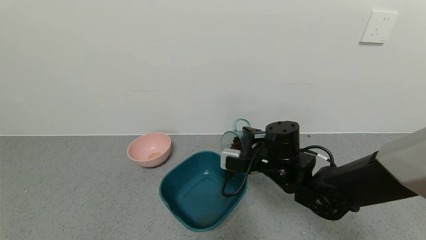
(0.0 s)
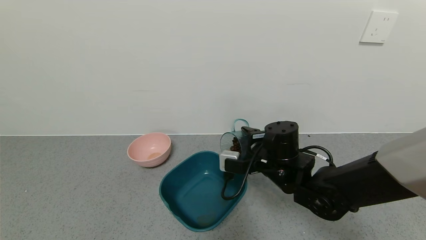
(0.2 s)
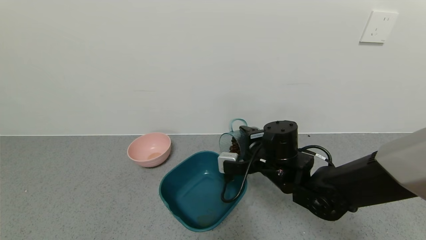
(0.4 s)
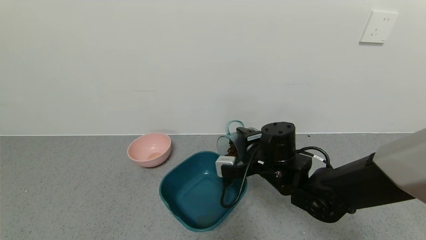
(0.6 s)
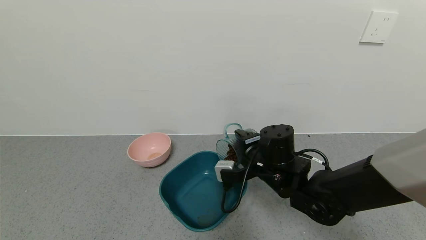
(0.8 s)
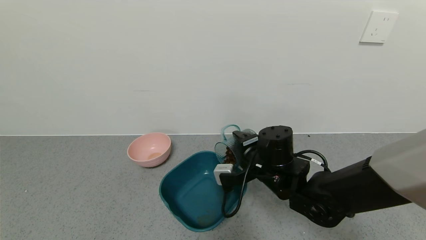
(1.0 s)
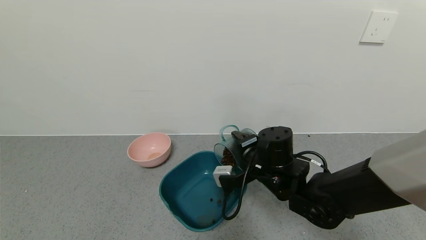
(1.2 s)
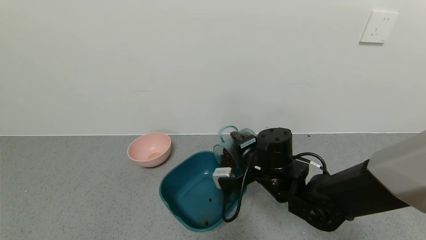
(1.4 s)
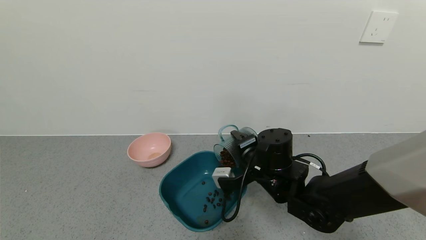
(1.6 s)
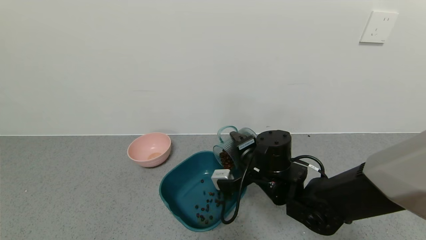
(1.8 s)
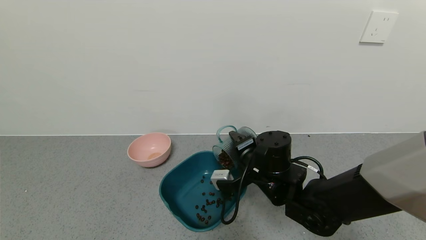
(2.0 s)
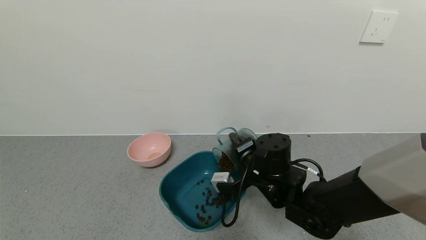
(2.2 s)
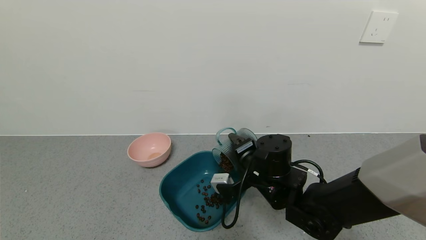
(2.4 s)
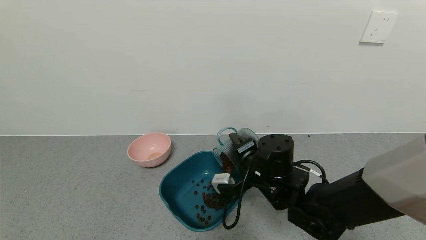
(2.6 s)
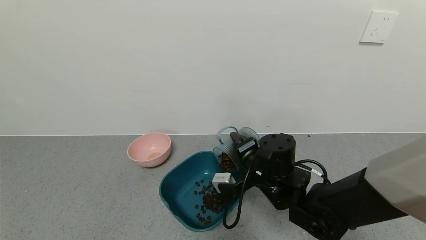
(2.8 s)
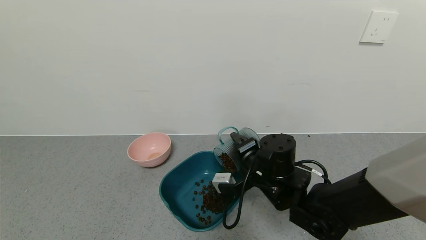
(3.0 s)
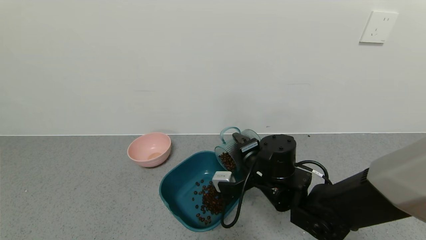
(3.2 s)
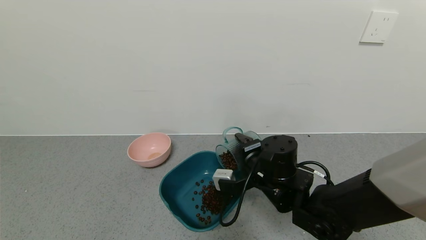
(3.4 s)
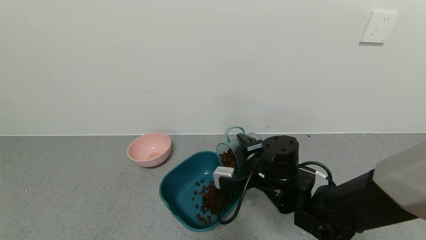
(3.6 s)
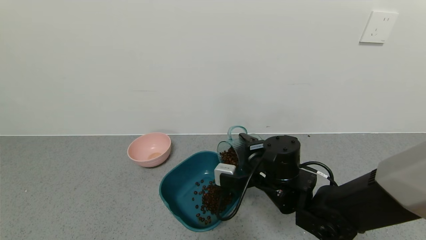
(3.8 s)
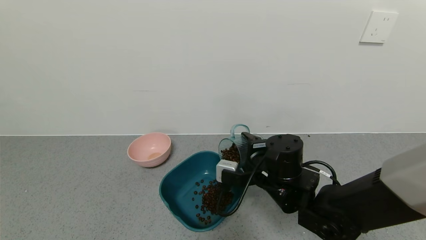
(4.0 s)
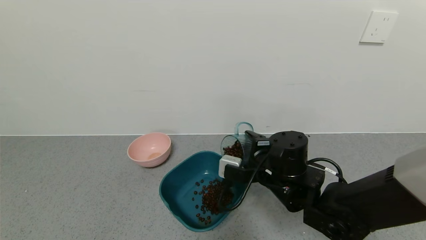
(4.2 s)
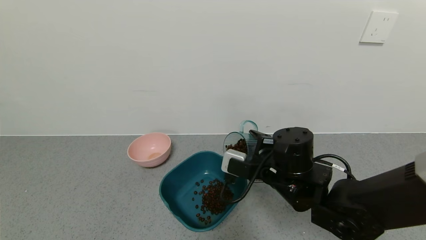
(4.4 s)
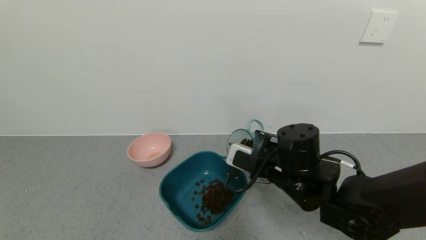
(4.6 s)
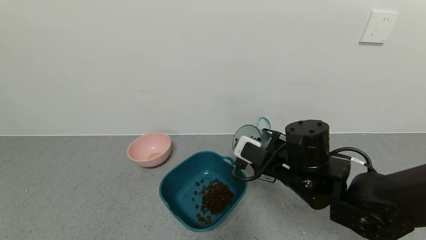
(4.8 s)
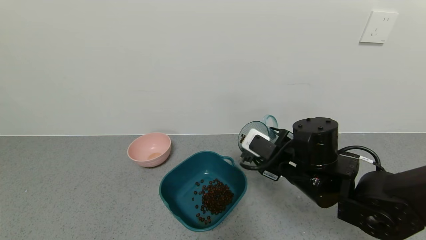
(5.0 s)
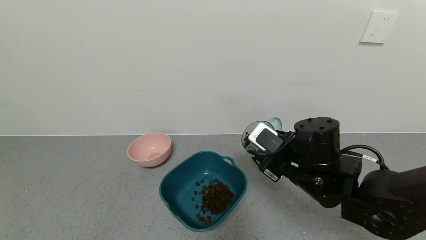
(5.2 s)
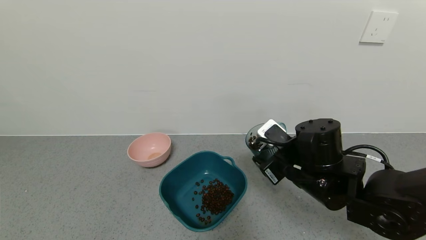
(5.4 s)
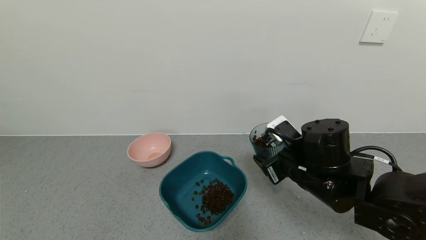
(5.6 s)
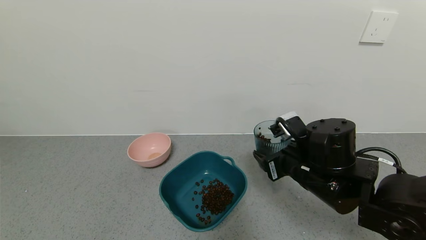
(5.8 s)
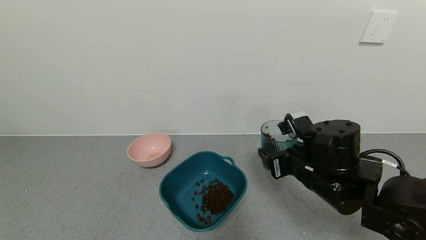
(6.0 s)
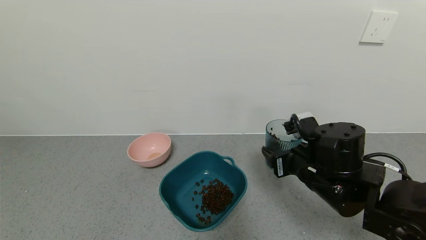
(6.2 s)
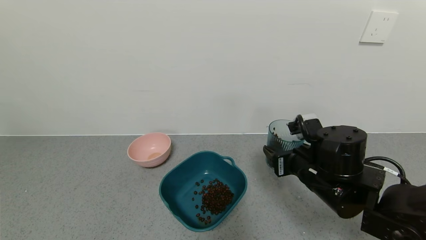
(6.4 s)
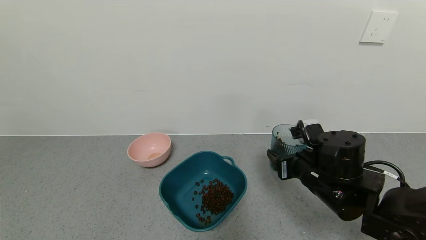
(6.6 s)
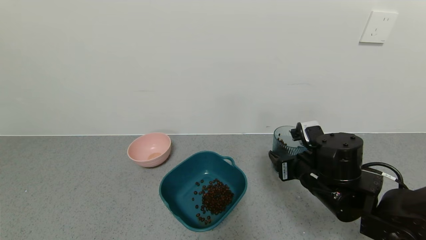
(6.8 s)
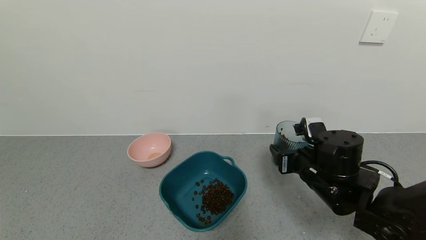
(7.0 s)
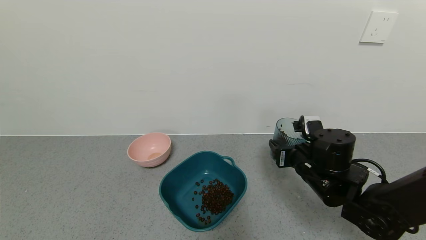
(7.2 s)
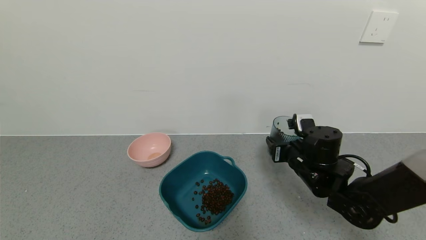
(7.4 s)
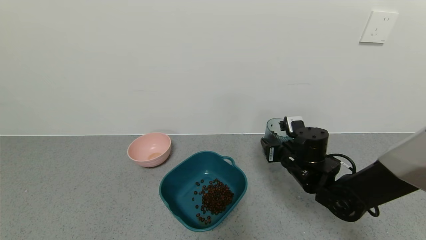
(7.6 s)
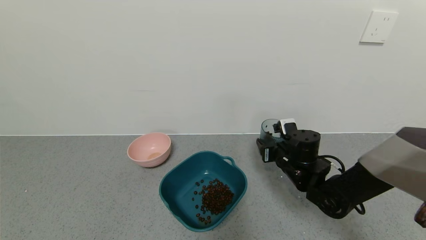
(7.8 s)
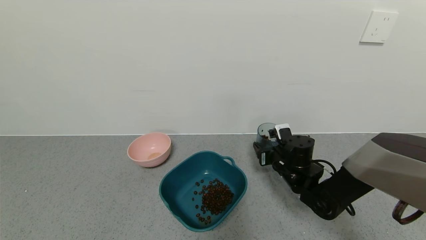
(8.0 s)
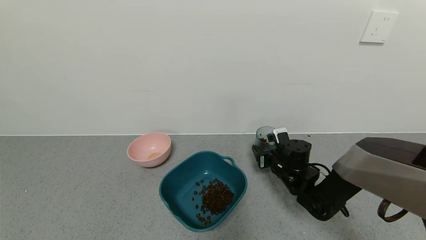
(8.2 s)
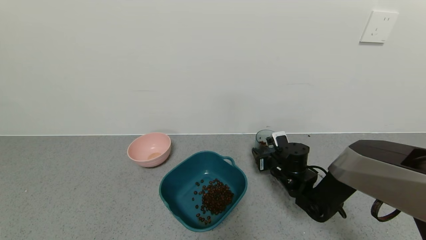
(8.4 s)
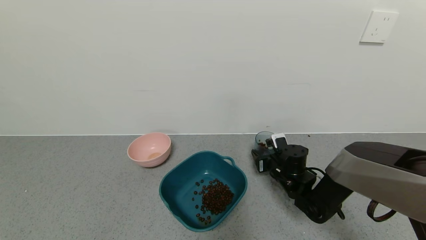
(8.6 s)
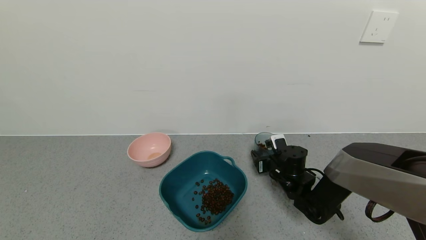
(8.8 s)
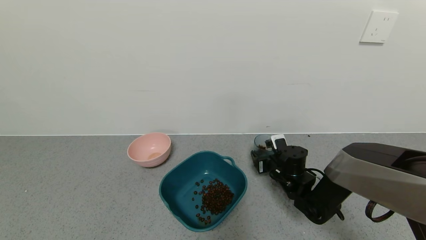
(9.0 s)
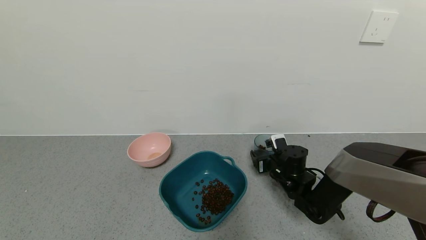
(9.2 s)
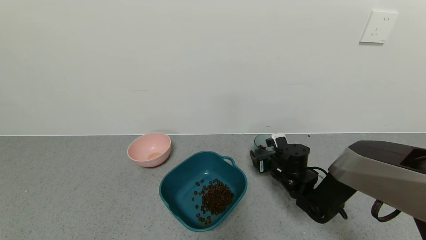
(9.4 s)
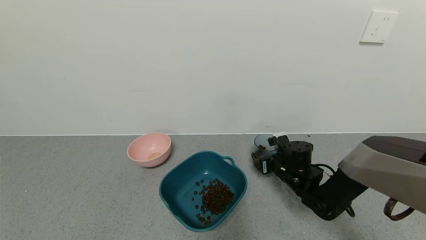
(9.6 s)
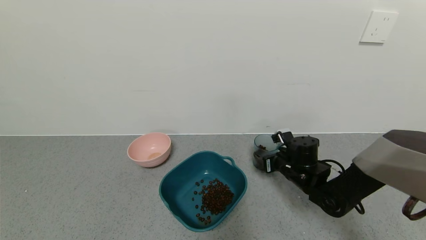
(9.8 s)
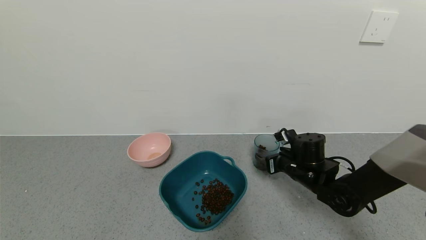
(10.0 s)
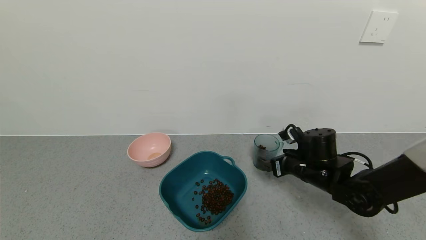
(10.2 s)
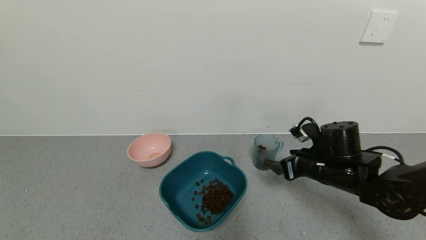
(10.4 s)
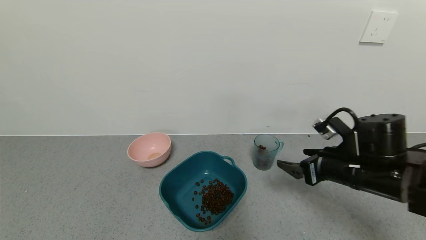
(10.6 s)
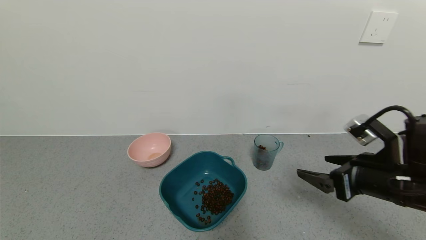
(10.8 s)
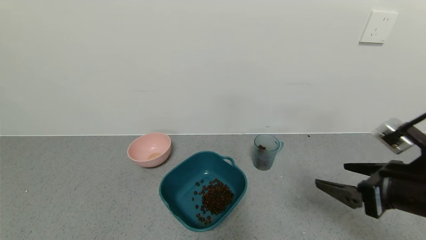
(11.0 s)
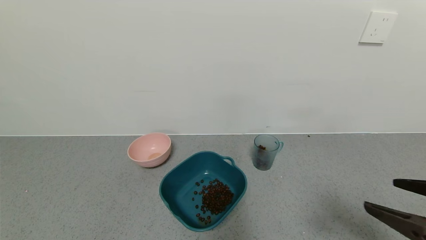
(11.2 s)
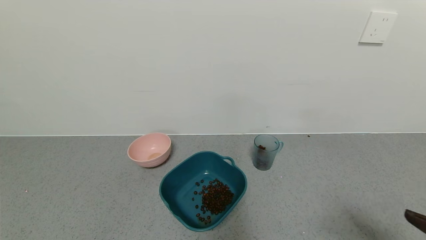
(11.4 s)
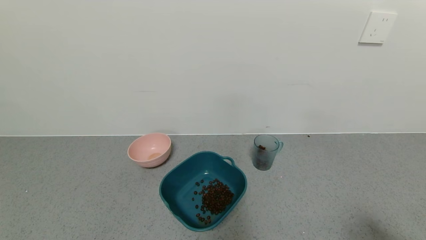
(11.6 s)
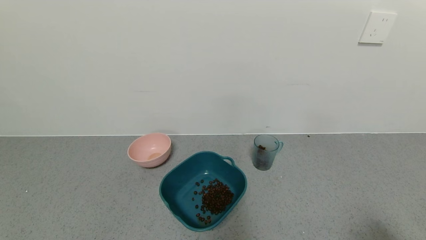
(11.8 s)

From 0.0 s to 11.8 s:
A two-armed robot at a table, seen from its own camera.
Task of the whole recording: use a gripper to pick up the cup and pour the solid into a bowl or tray.
Step, from 0.0 s to 5.6 s: Pour the coffee beans into the green bowl with the right gripper.
Step, from 5.8 s to 10.2 s: Place the glass cup with the right gripper.
From 1.4 s to 3.0 s: The grippers move only a little.
From 4.4 s to 6.0 s: The right gripper heads to the right, covering approximately 5 cm.
From 6.0 s to 7.4 s: The right gripper is displaced forward by about 5 cm.
From 7.4 s to 8.8 s: The right gripper heads downward and forward, covering about 10 cm.
From 8.8 s to 10.4 s: The right gripper is displaced upward and backward by roughly 10 cm, and opens.
From 10.4 s to 11.8 s: The right gripper moves backward and to the right, about 30 cm.
